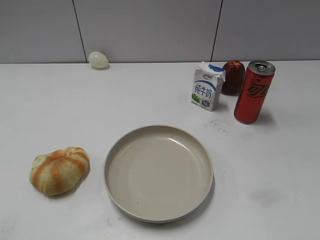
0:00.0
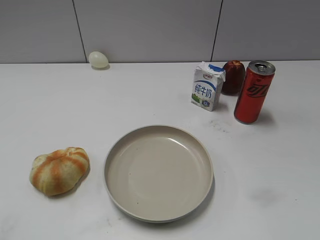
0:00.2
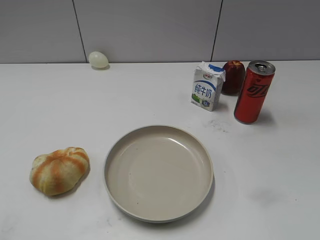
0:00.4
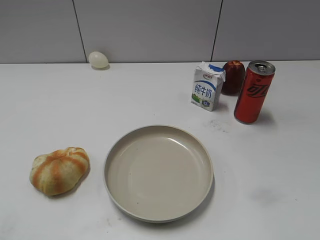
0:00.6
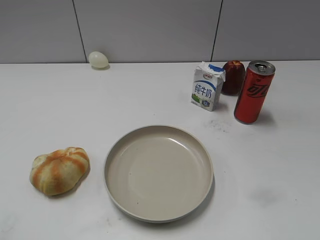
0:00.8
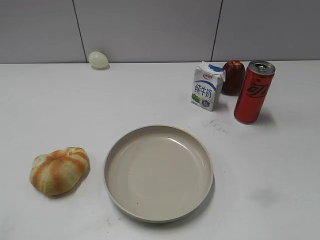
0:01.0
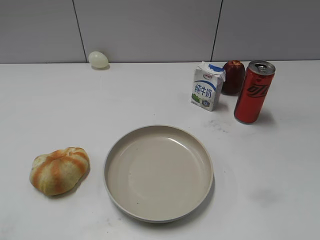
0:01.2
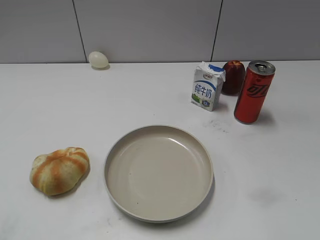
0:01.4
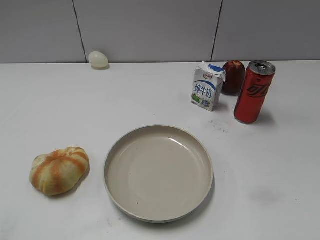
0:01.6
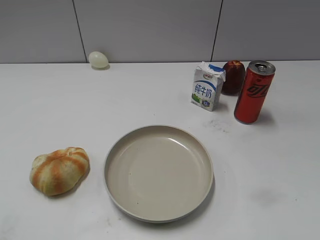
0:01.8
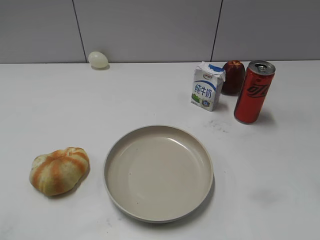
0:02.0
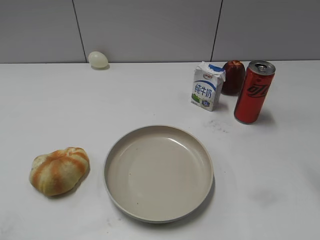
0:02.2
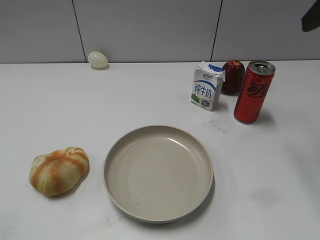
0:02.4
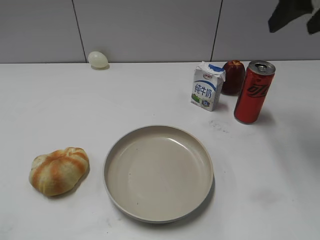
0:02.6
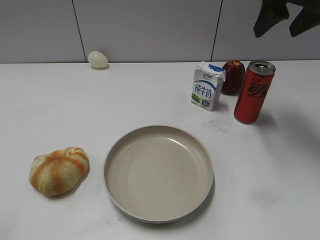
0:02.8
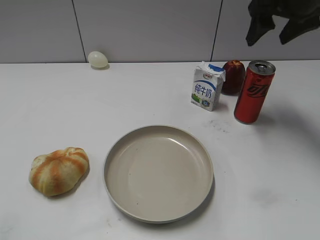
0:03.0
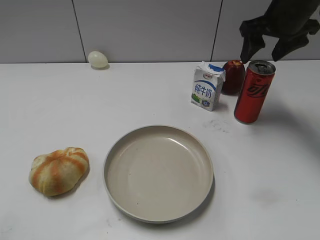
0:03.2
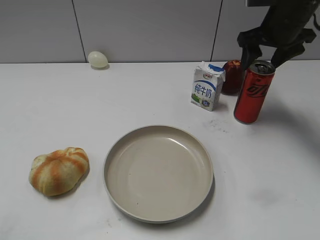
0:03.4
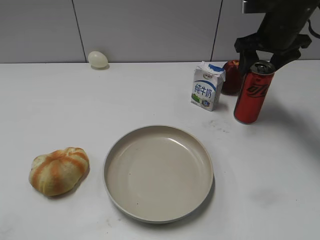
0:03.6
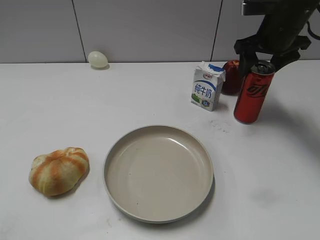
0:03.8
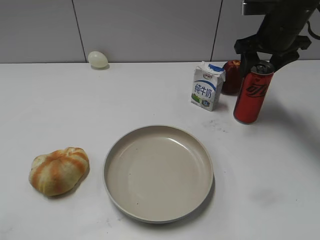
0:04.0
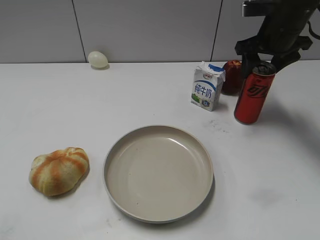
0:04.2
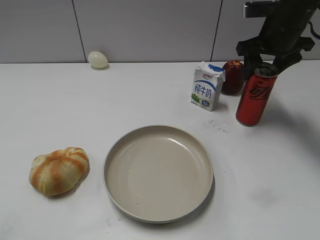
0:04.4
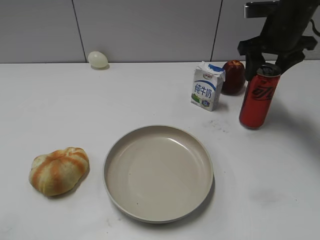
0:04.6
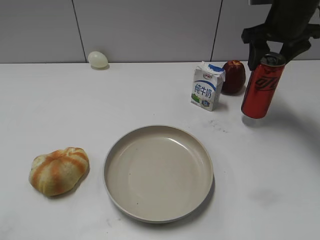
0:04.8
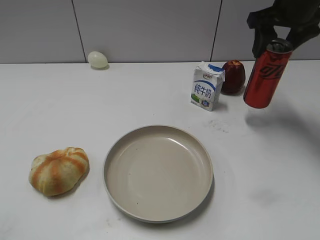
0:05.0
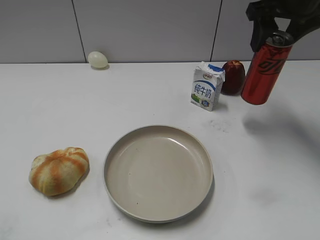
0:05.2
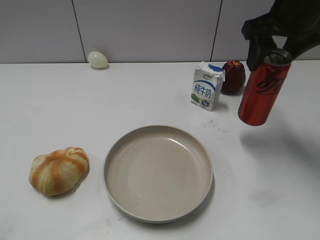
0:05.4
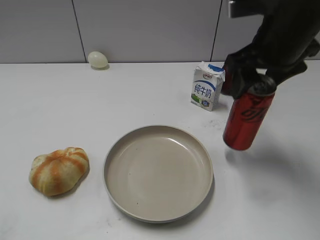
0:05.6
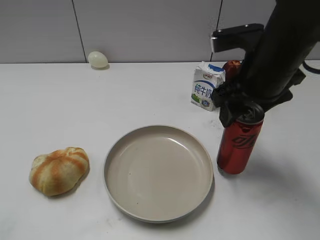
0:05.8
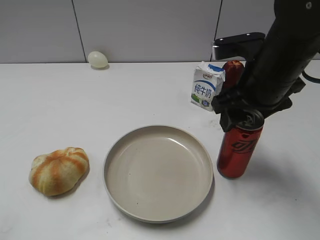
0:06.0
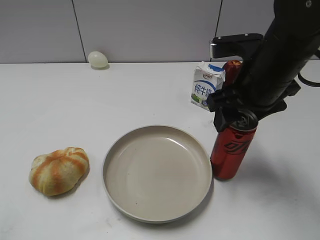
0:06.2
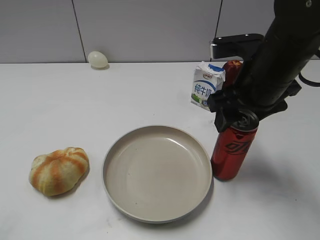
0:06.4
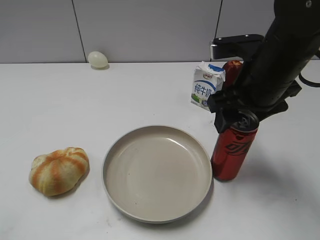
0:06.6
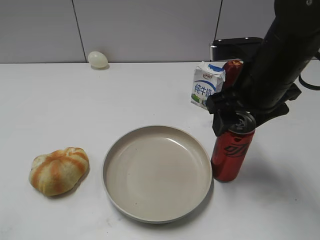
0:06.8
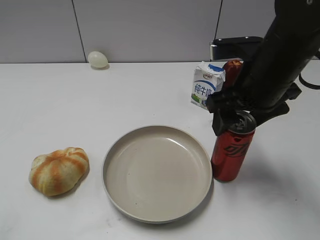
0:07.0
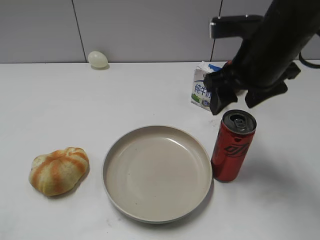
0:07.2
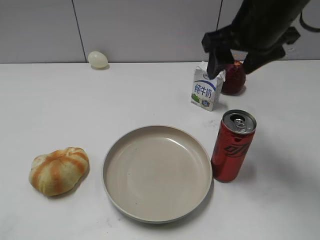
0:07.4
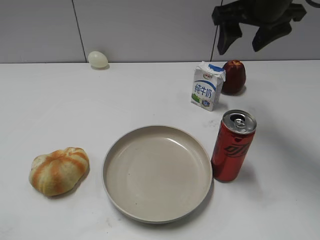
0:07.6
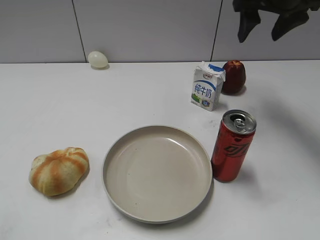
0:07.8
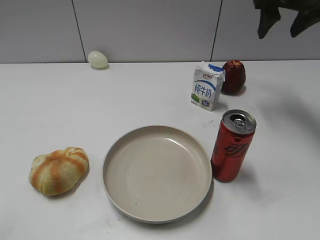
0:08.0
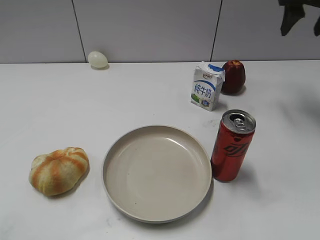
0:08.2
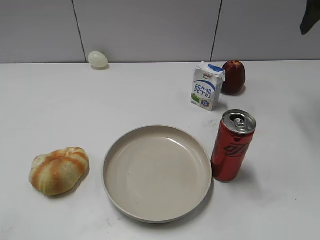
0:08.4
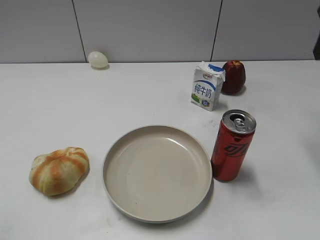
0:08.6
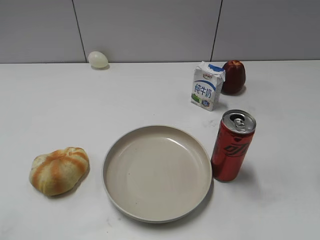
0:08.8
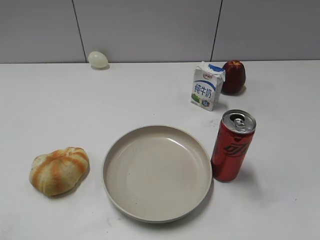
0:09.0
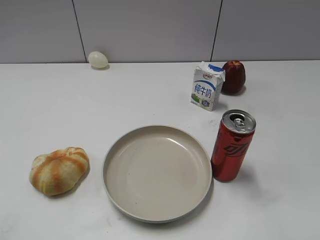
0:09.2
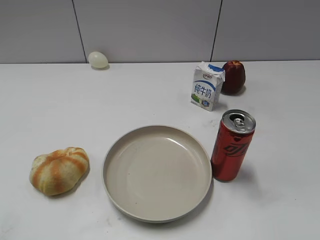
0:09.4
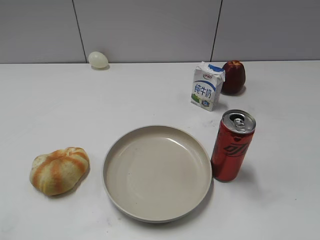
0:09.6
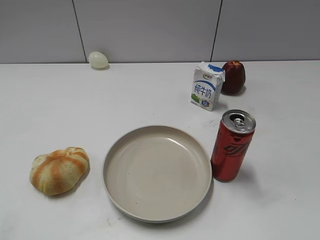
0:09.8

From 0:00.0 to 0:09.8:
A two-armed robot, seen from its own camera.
Step, from 0:00.0 to 0:04.2: Grasp the cola with right gripper.
Step, from 0:04.4 to 0:07.2: Place the cola on the table with right gripper.
From 0:01.4 to 0:02.8: The right gripper heads forward, covering some 35 cm, and opens its fingers.
From 0:02.8 to 0:04.2: The right gripper goes approximately 10 cm downward and forward, and closes up.
From 0:04.2 to 0:05.6: The right gripper is displaced backward and to the left by some 15 cm.
From 0:05.6 to 0:07.0: The right gripper changes place by roughly 5 cm, and opens.
From 0:07.0 to 0:08.4: The right gripper heads to the right, forward and upward, covering roughly 20 cm.
From 0:08.4 to 0:09.8: The right gripper heads backward, covering approximately 40 cm.
